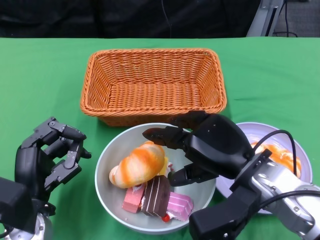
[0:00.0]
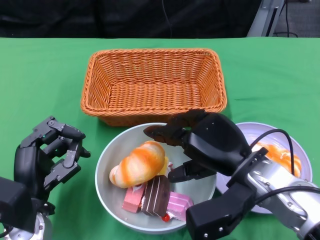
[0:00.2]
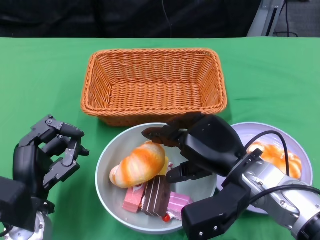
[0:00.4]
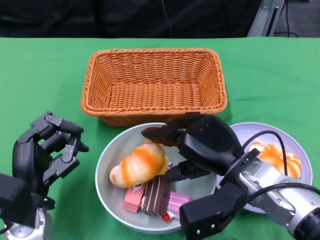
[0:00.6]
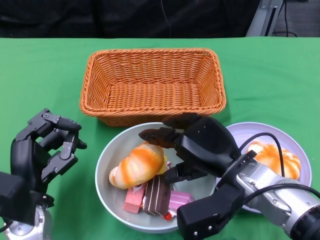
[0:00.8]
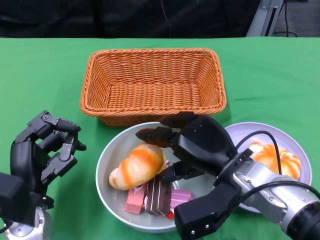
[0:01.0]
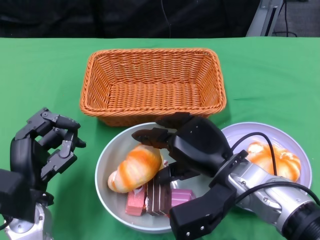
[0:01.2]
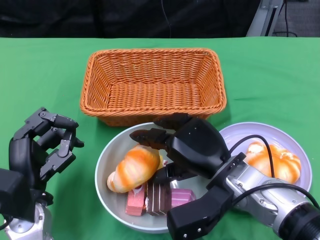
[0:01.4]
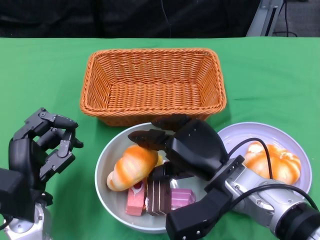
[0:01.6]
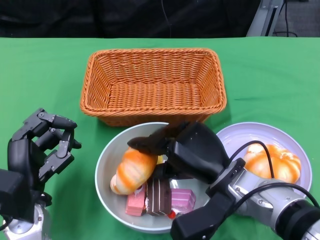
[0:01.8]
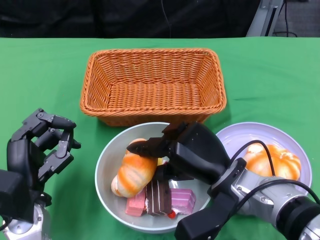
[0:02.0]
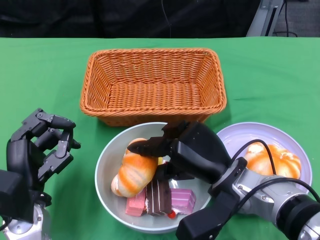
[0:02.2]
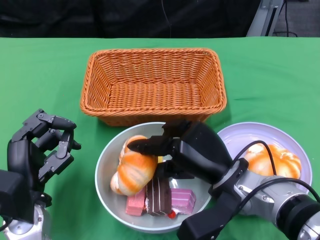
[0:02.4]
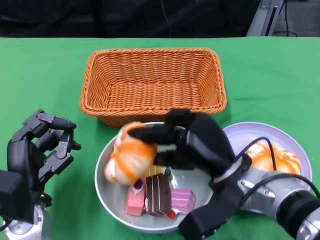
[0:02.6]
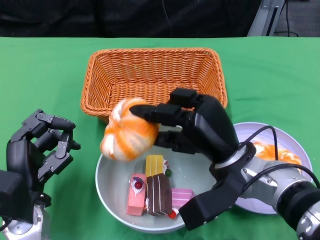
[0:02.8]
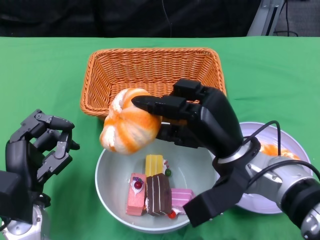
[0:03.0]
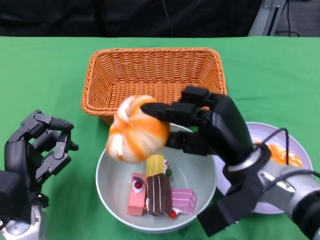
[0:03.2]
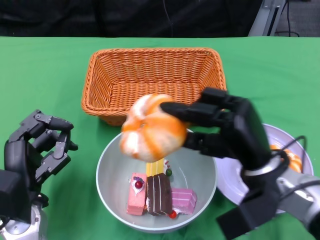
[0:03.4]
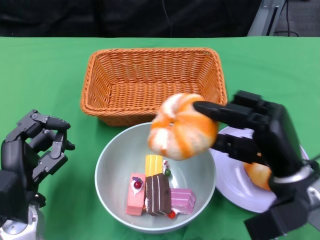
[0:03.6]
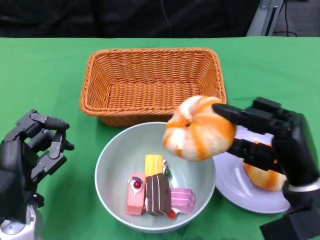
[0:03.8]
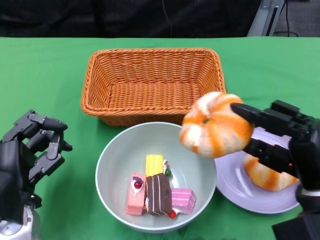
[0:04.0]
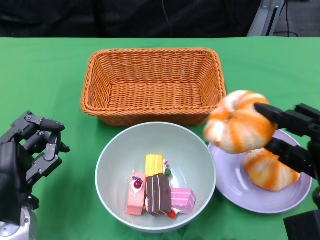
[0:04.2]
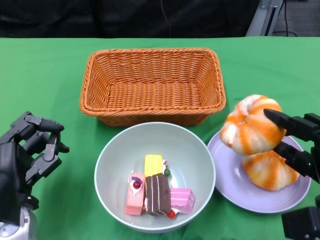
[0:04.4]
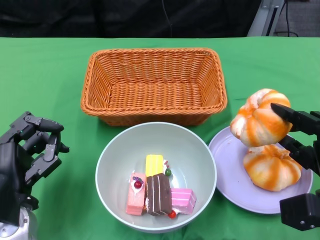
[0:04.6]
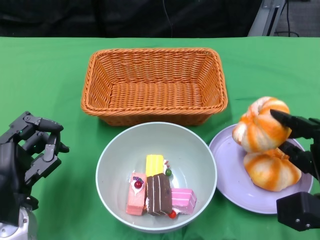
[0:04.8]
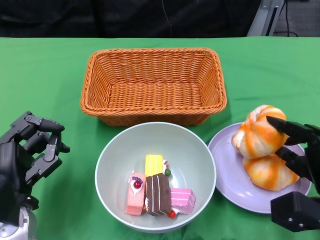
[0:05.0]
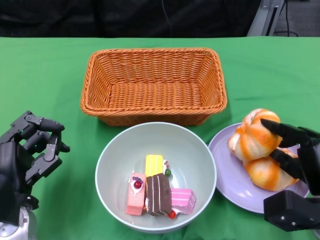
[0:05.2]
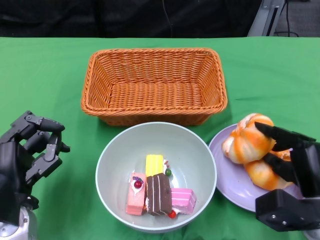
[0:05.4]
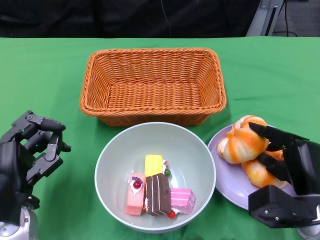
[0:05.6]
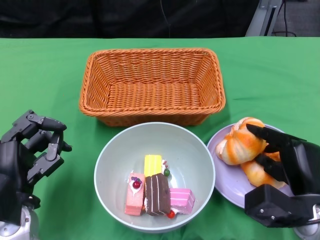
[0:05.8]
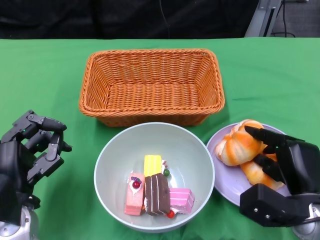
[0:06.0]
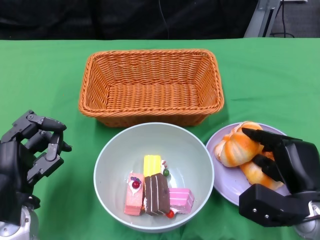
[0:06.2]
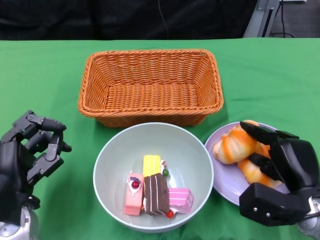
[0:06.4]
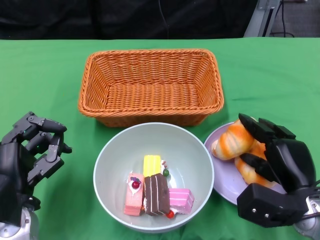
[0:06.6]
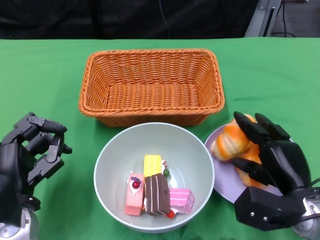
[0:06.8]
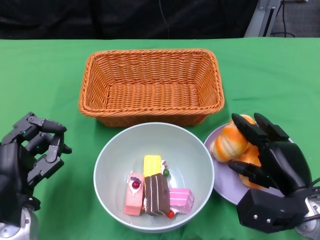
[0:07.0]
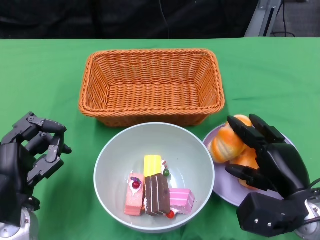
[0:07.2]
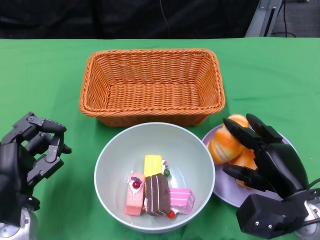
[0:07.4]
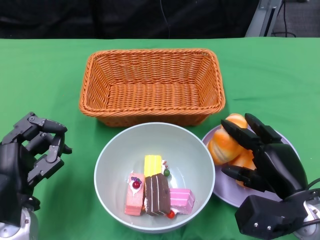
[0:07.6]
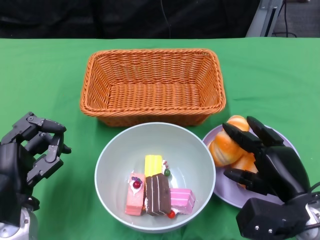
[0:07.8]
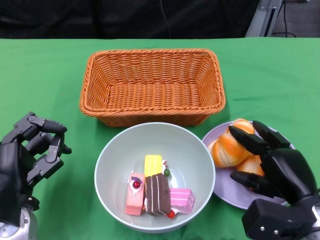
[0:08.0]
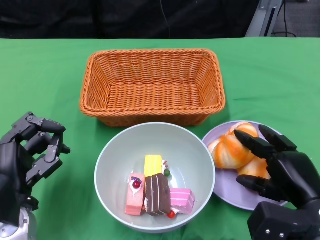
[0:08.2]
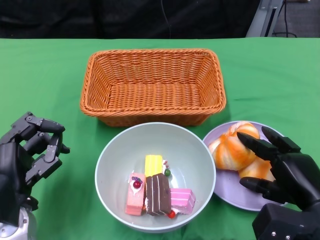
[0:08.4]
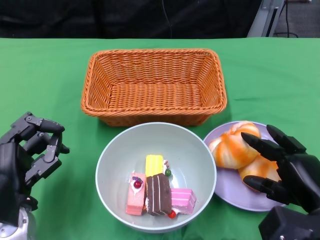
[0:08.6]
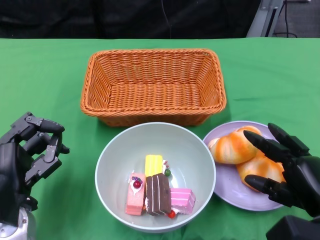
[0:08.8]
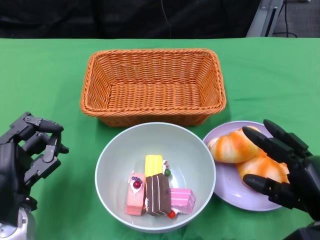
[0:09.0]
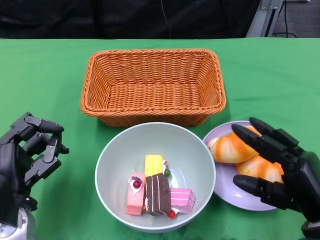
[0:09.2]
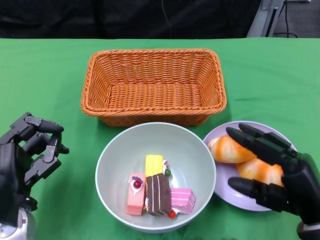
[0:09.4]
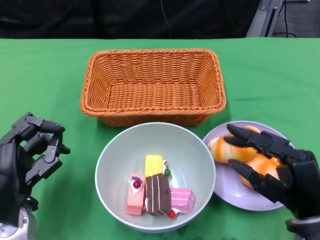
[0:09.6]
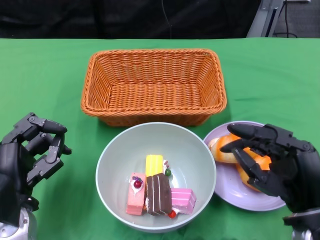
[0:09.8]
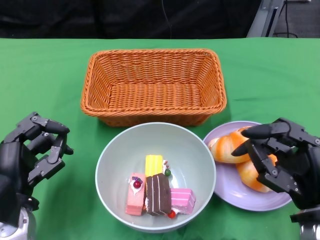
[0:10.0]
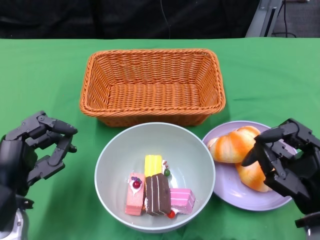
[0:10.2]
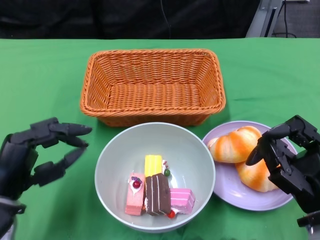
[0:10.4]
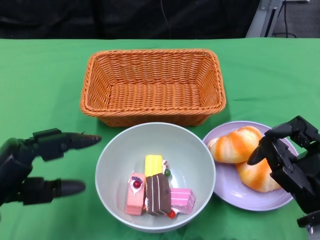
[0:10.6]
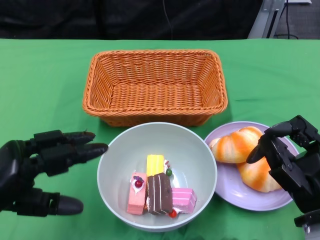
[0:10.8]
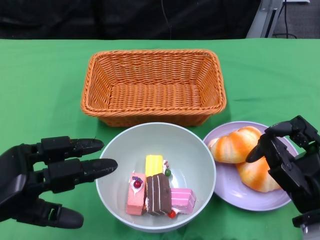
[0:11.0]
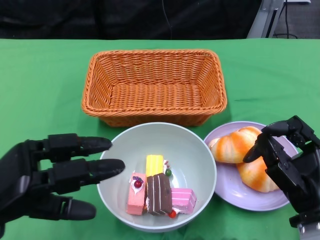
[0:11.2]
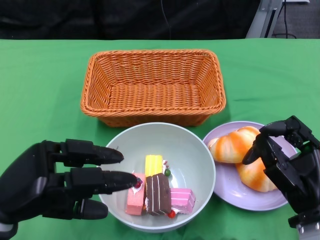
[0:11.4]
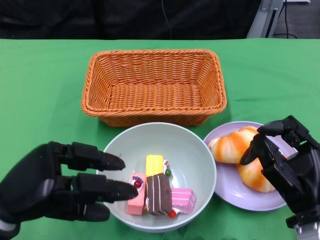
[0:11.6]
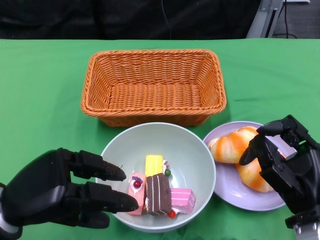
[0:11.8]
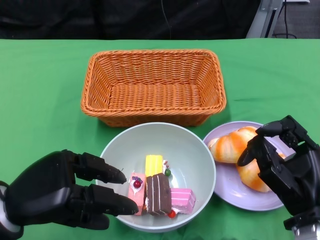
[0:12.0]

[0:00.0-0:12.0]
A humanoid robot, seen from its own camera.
Step, 0:00.0 to 0:08.8: Pick up the bread with the right gripper and place it on the plate.
0:00.0 to 0:01.6: The right hand ends up roughly 5 cm from where it was.
0:03.0 to 0:04.4: The right hand heads to the right, covering approximately 15 cm.
0:04.4 to 0:06.0: The right hand changes place by about 5 cm.
0:06.0 to 0:07.6: There are only small adjustments of the hands.
0:07.6 to 0:09.0: The right hand moves approximately 5 cm.

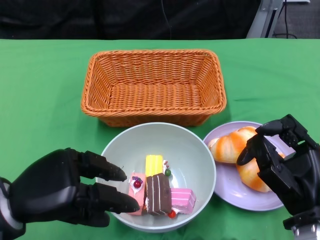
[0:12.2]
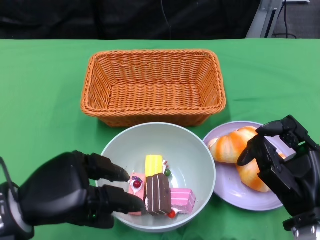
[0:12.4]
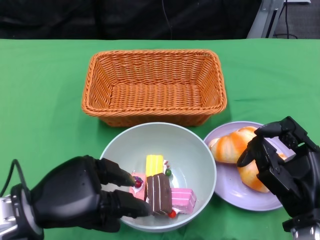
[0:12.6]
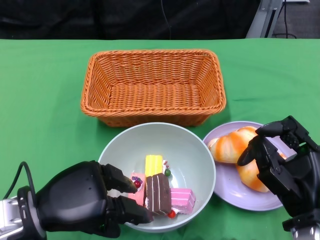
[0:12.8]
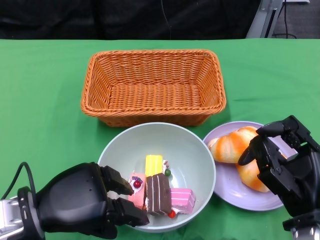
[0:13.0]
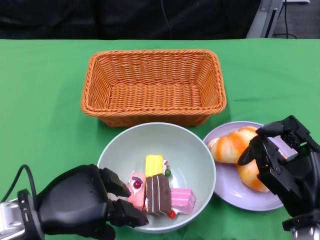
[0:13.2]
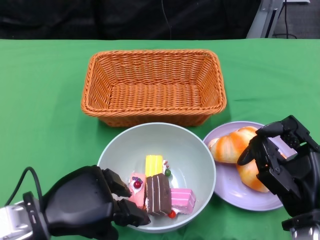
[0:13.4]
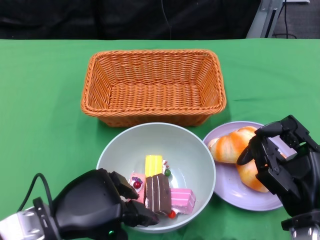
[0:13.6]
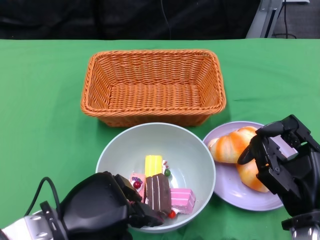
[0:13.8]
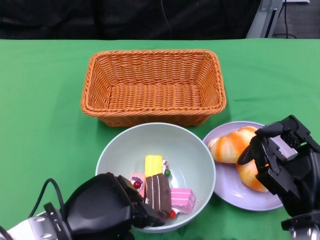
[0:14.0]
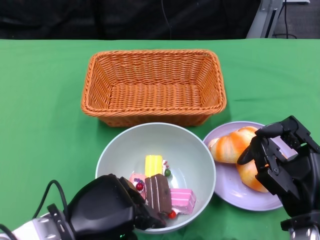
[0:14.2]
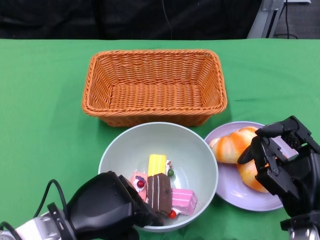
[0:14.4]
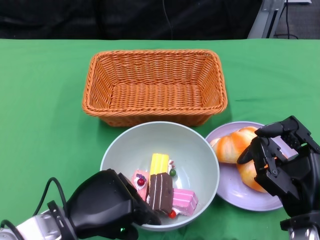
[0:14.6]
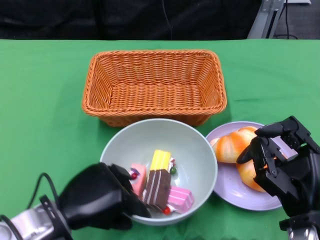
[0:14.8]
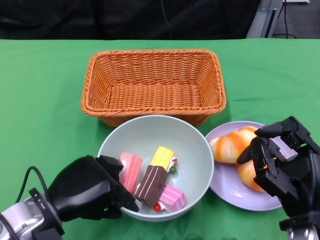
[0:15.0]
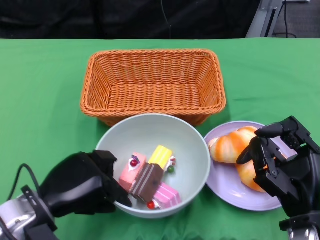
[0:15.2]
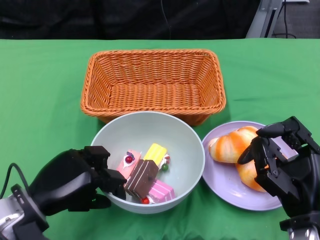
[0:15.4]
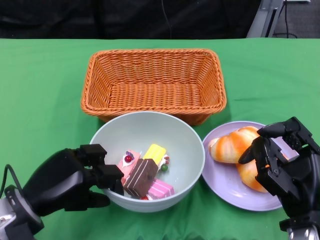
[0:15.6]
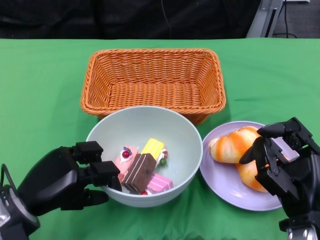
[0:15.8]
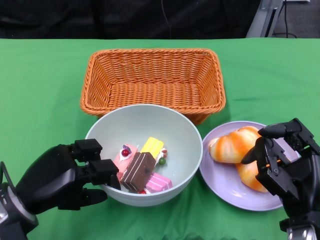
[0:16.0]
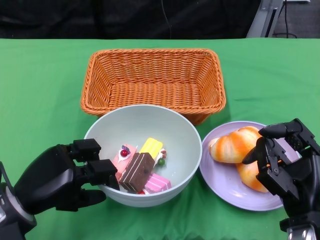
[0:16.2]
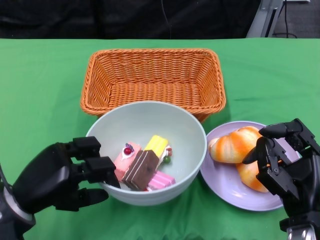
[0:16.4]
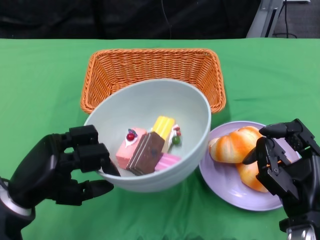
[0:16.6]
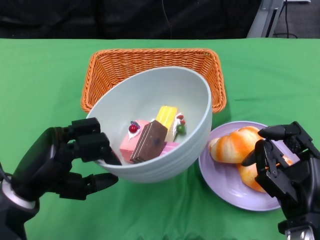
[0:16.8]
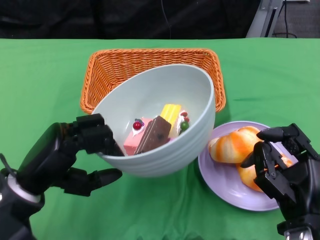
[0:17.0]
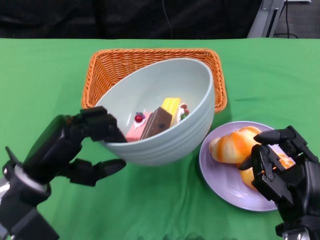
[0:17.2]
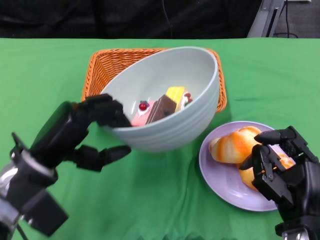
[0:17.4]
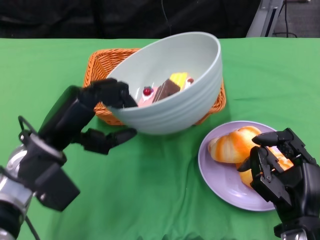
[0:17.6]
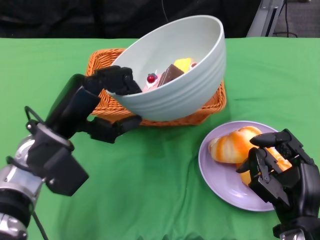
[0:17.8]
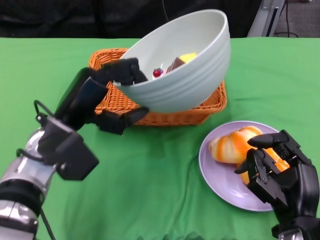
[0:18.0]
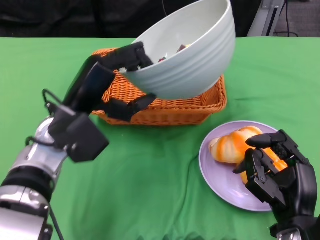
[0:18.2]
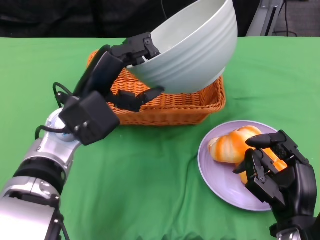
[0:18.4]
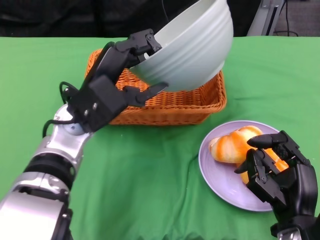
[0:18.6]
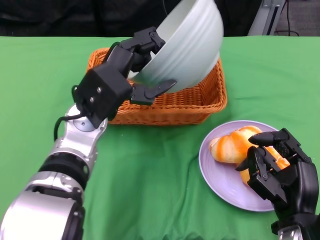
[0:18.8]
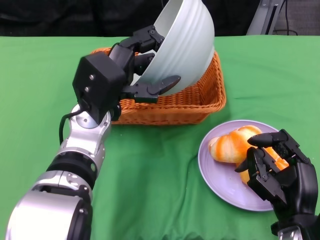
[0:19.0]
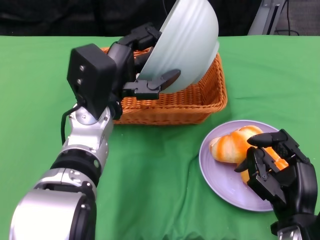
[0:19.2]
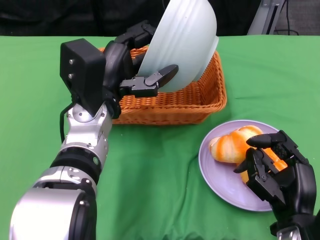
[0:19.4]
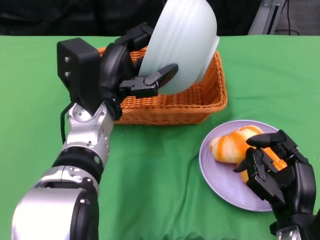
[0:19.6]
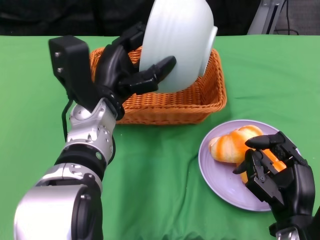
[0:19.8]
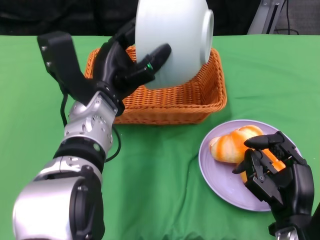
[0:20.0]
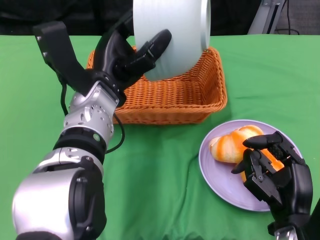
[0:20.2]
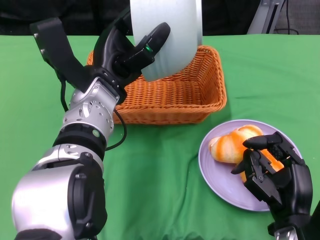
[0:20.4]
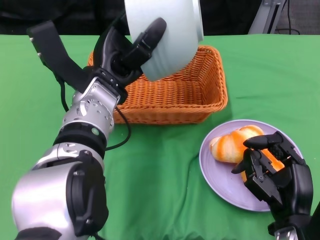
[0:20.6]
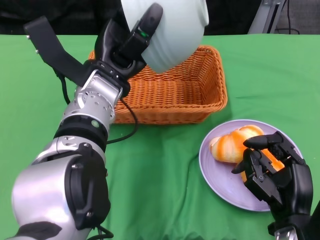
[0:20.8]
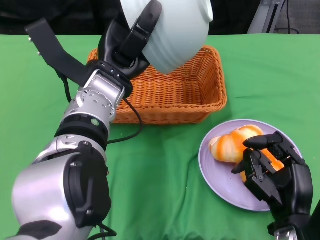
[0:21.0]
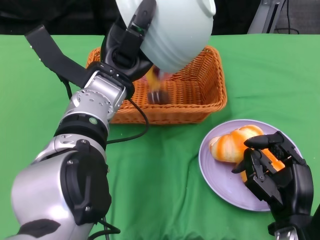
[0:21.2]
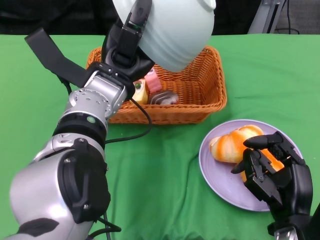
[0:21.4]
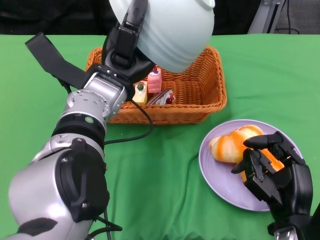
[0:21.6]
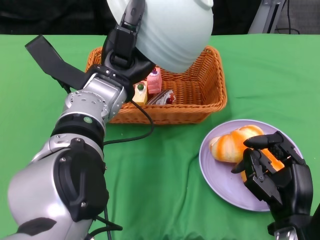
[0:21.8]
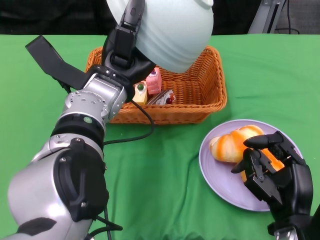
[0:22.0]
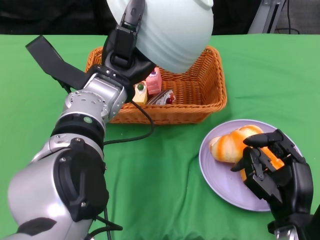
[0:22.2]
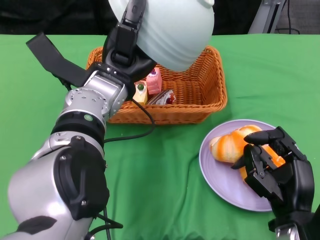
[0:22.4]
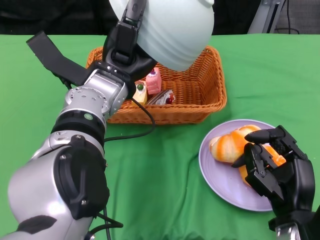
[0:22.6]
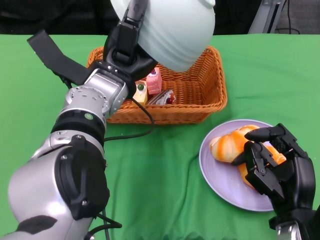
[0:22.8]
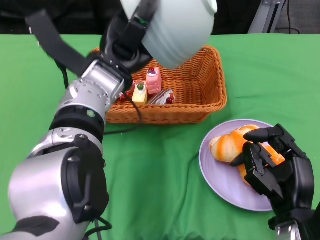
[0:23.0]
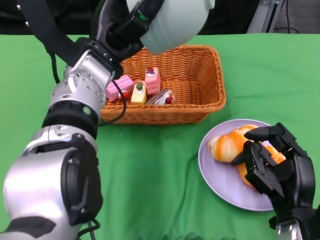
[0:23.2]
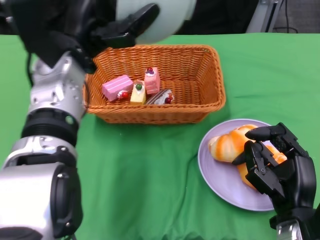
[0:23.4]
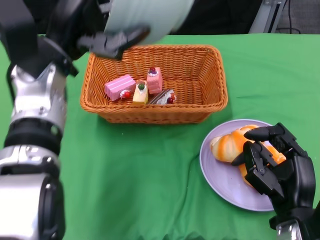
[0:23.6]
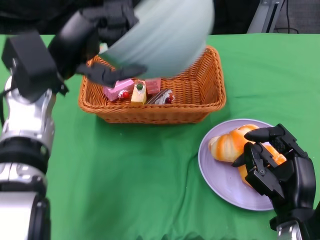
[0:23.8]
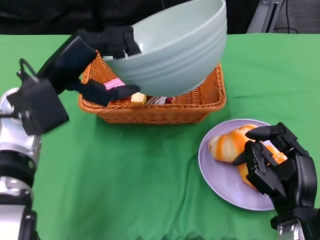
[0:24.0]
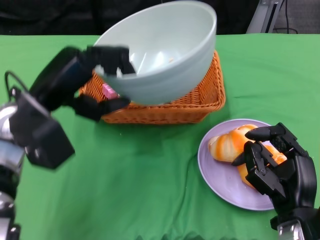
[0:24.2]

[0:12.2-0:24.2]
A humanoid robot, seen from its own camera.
Step, 0:12.2 to 0:15.0: Grasp the bowl with the left gripper.
Step, 0:15.2 to 0:21.6: Pour the cake into the basket with the left gripper.
0:12.2 to 0:13.8: The left hand shifts approximately 5 cm to the right.
0:16.6 to 0:18.2: The left hand moves forward, to the right and upward, roughly 15 cm.
0:18.2 to 0:19.8: The left hand changes place by about 5 cm.
0:21.2 to 0:22.6: There are only small adjustments of the hands.
0:22.6 to 0:24.2: The left hand goes roughly 10 cm to the left.
